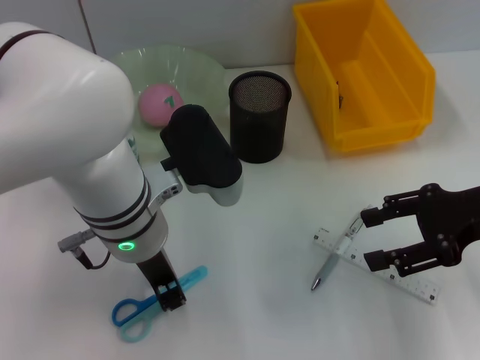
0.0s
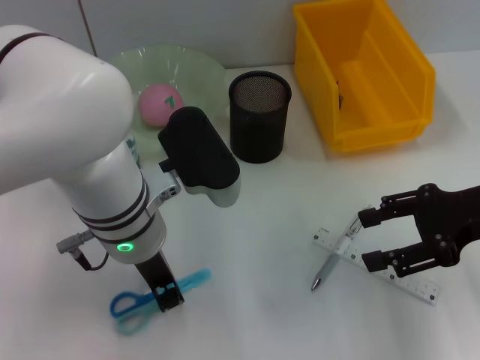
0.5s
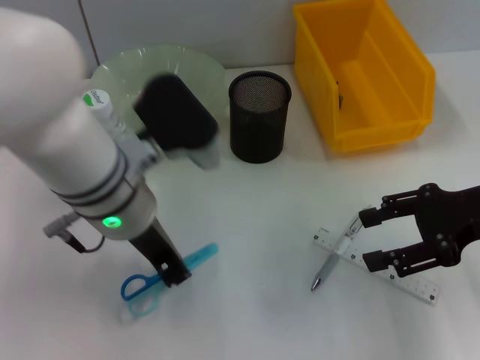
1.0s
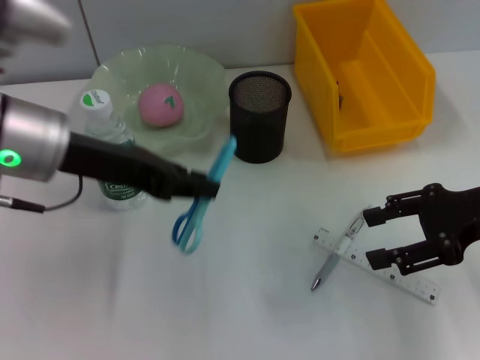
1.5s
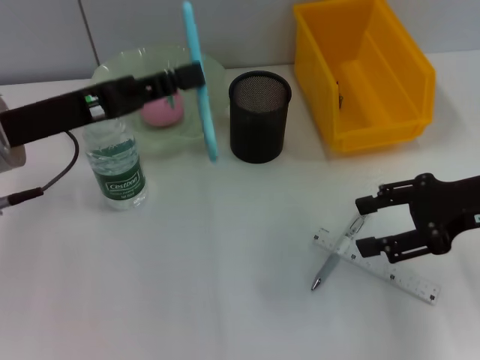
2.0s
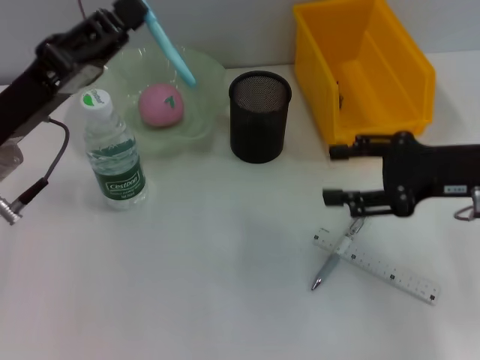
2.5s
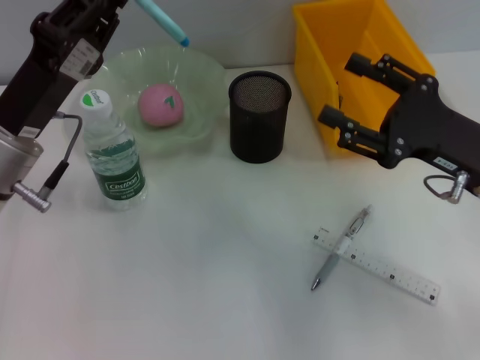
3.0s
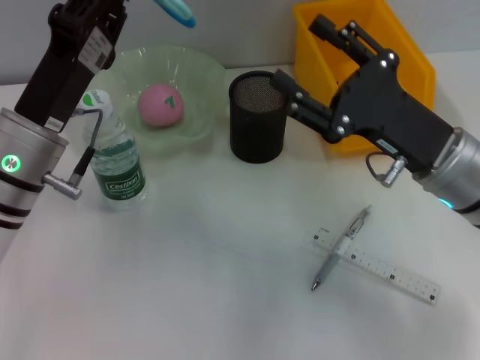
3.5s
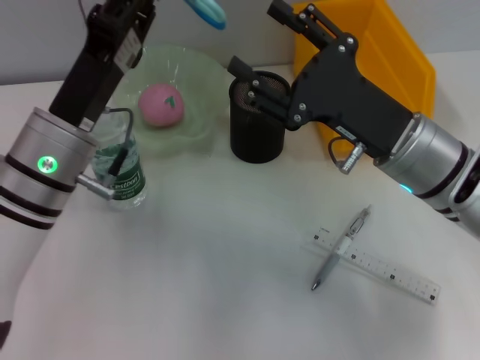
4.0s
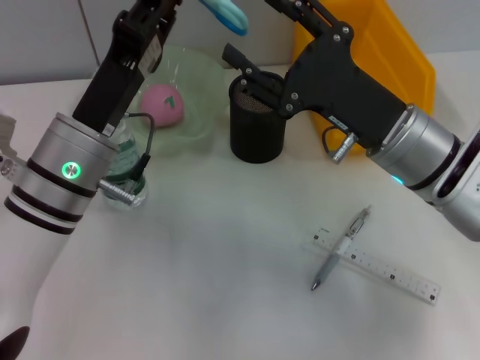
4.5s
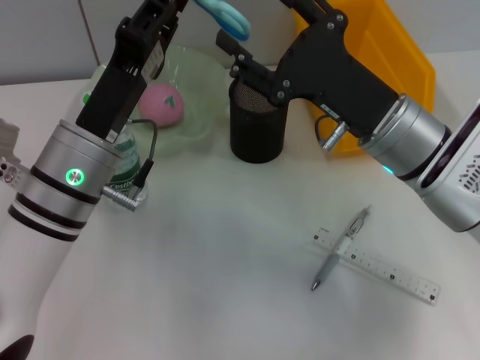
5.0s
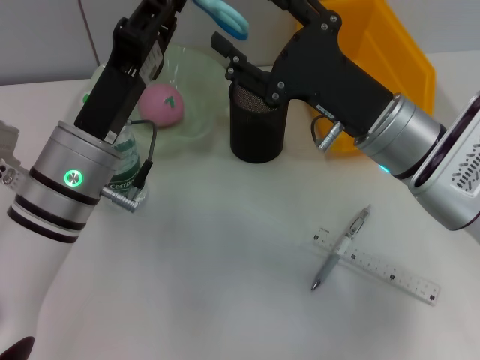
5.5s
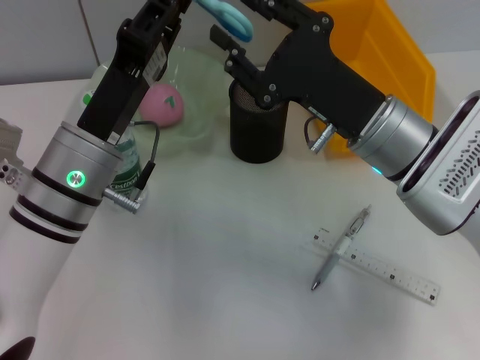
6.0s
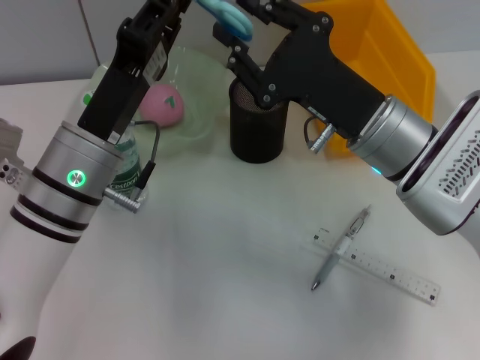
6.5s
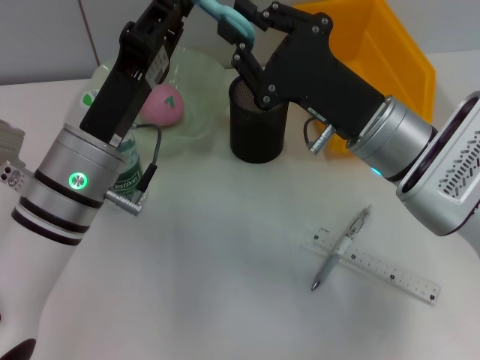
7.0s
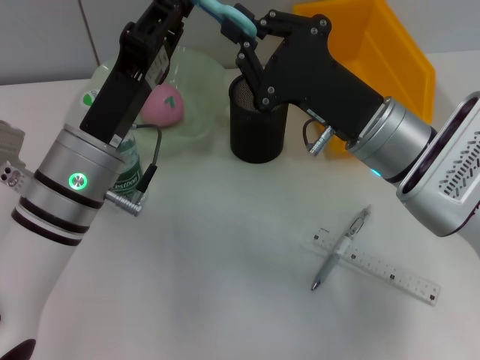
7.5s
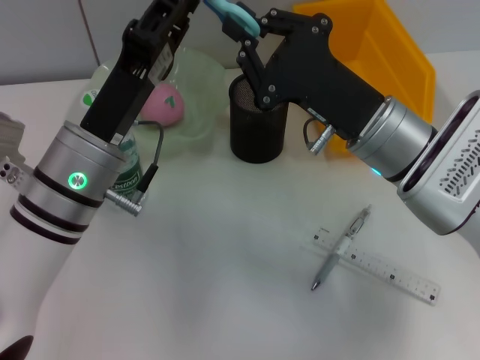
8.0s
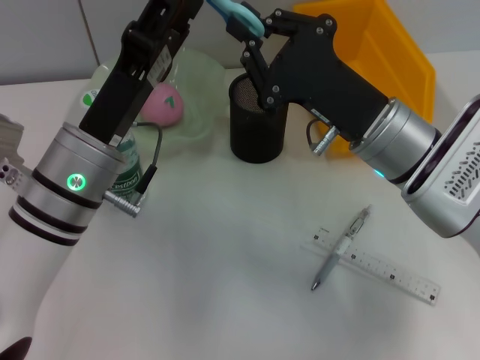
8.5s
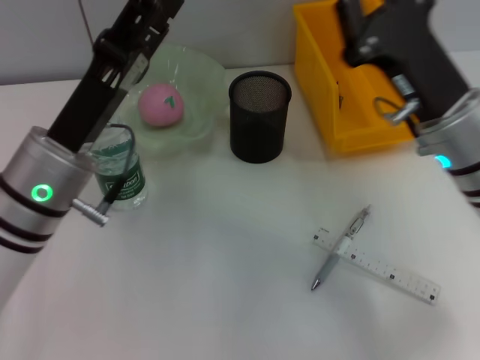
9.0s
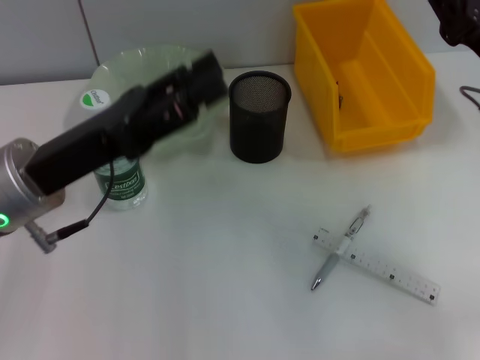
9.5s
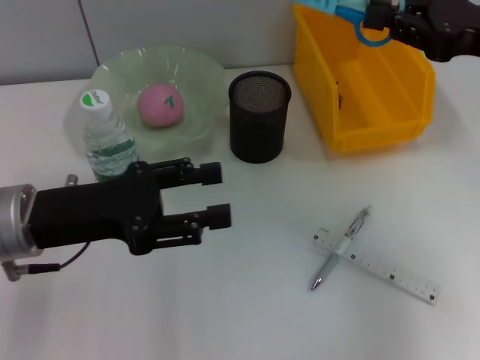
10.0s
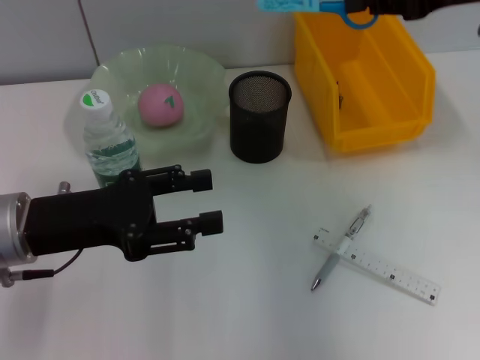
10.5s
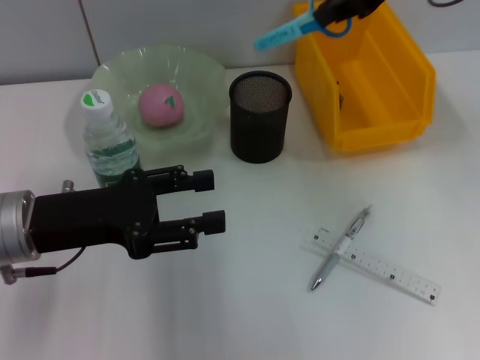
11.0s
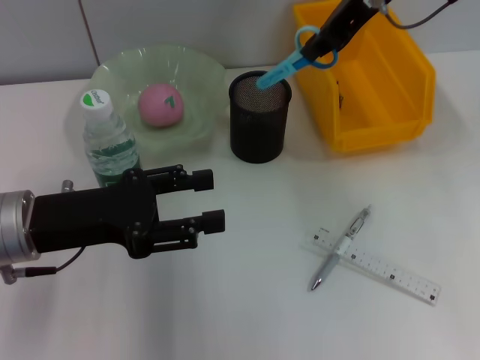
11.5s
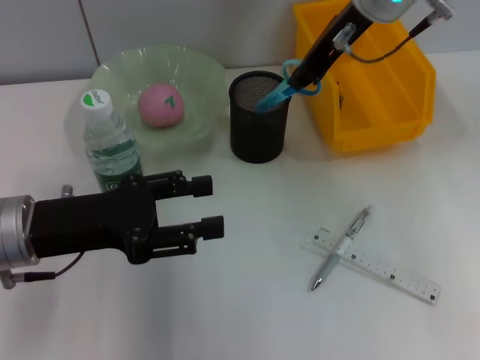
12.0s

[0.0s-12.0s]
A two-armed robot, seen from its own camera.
Step, 0.5s to 8.5s: Pass the blue scissors from the left hand to the right hand.
0.0s to 2.0s: The left gripper moves to the left, some 15 cm.
2.0s to 4.0s: The right gripper is displaced to the left by roughly 10 cm. The left gripper goes about 10 cm to the right and downward.
6.0s to 8.0s: The right gripper closes its fingers.
8.0s to 10.0s: The right gripper goes some 20 cm to the right and upward. Meanwhile the left gripper is displaced to the left by approximately 10 cm, and opens up.
10.0s to 12.0s: The right gripper goes roughly 20 cm to the left and forward.

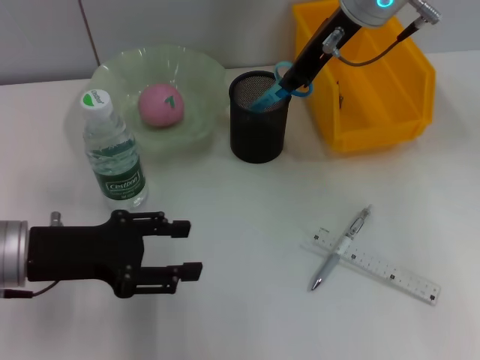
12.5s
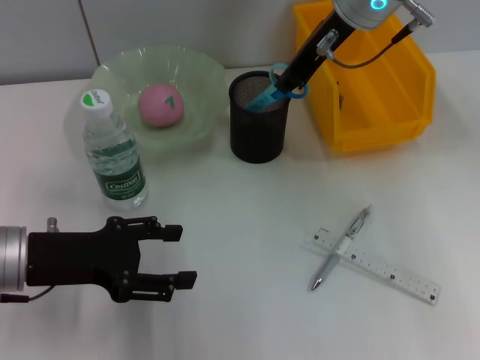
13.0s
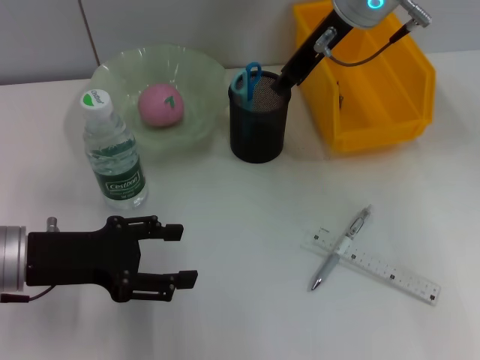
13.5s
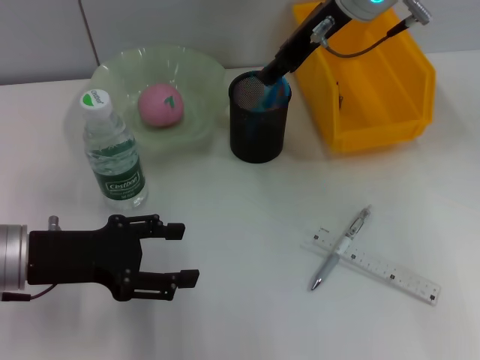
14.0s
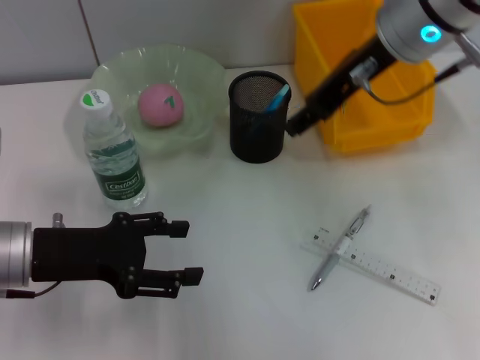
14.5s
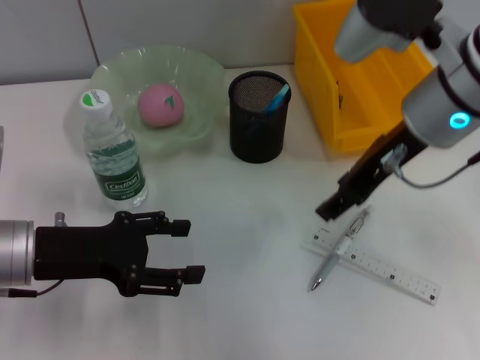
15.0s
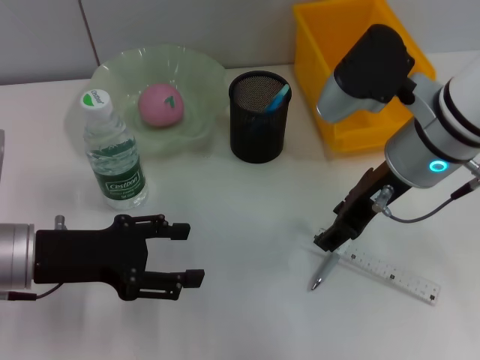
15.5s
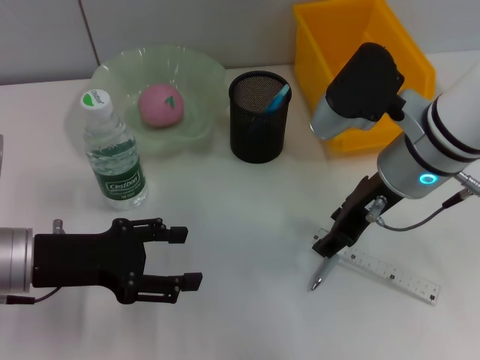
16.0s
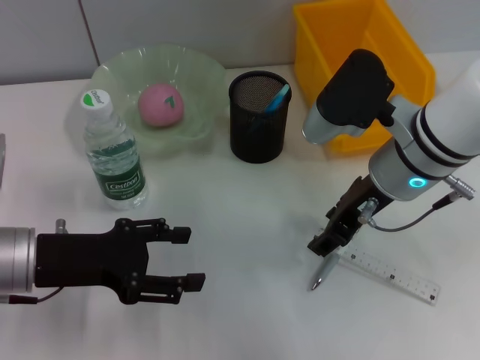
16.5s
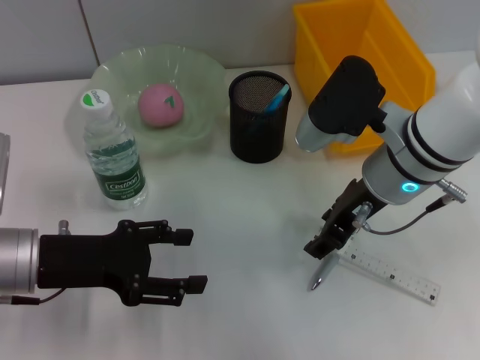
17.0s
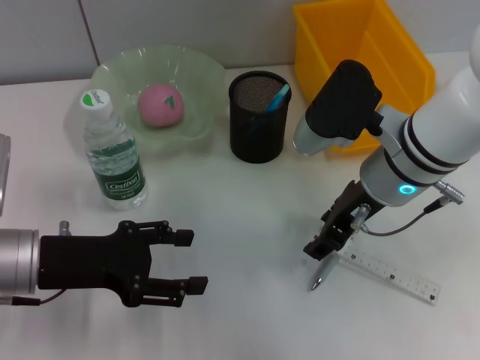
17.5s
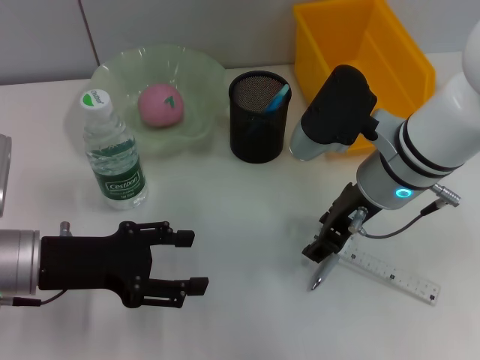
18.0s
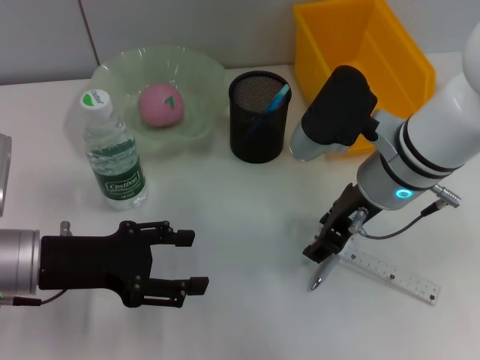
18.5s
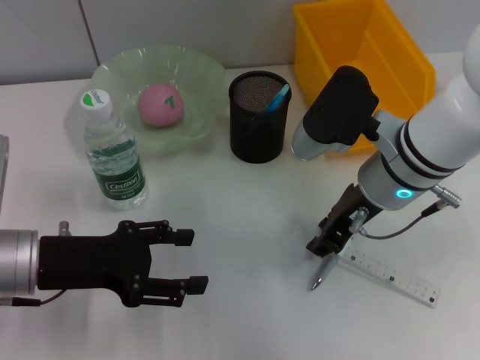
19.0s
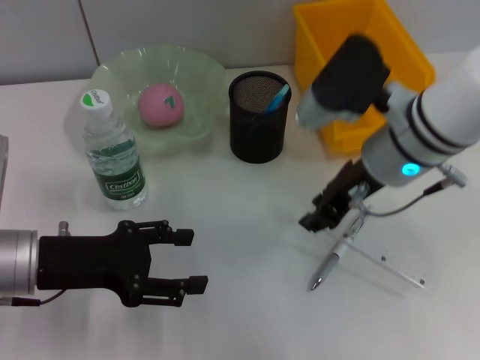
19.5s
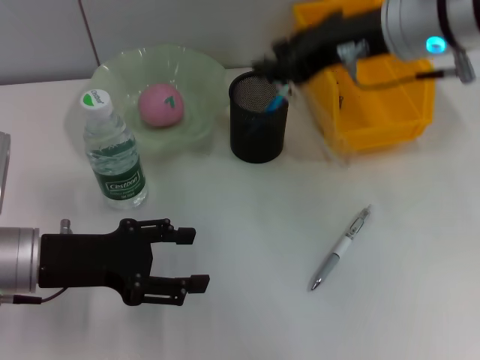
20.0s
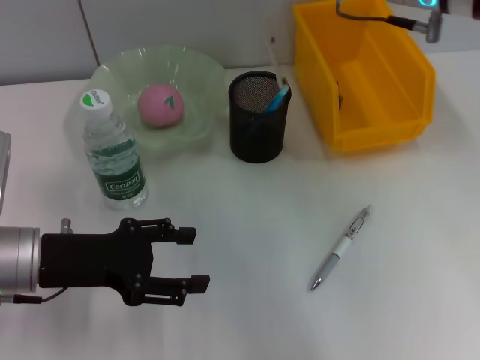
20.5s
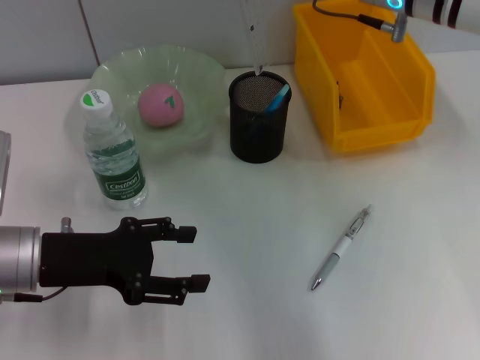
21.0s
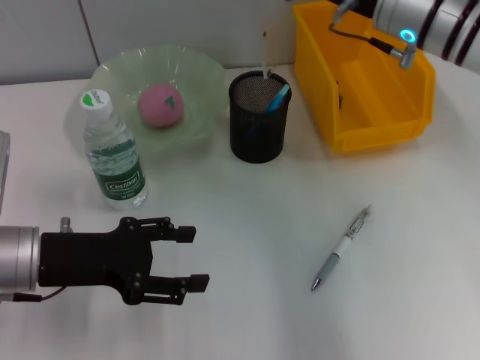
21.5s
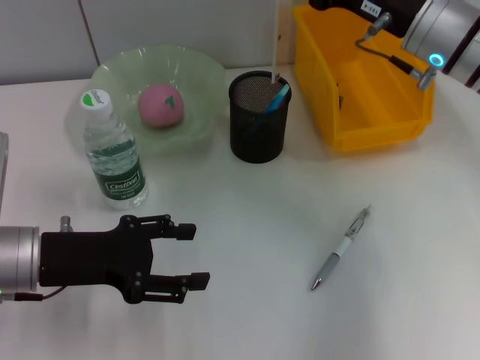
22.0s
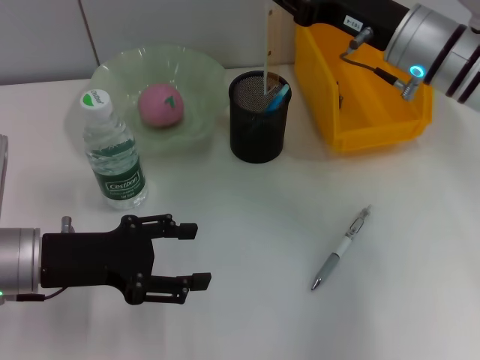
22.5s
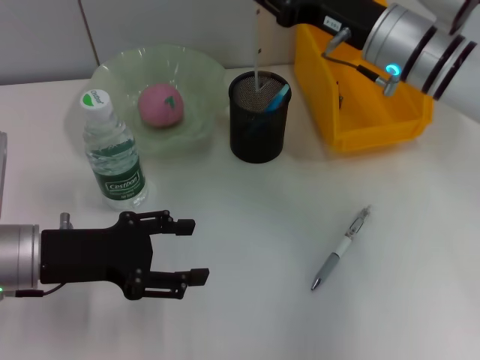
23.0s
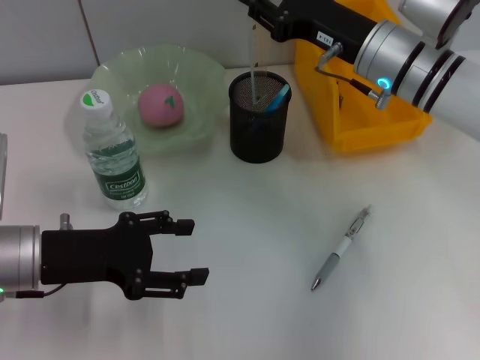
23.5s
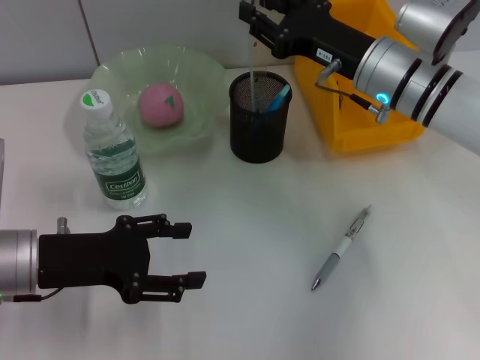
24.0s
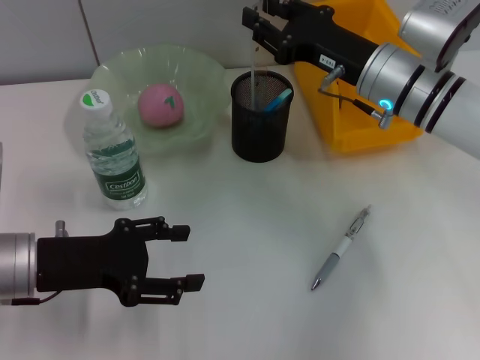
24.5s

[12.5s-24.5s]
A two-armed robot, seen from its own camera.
Step, 14.0s to 19.0s: Grab the ruler with the right hand.
12.5s to 14.5s: The right gripper moves backward, roughly 5 cm, and opens.
14.5s to 16.5s: The right gripper travels downward by some 10 cm.
16.5s to 18.5s: There are only small adjustments of the grippers.
18.5s to 20.5s: The right gripper travels upward by approximately 15 cm, and closes its fingers.
20.5s to 22.5s: The right gripper shifts roughly 10 cm downward.
22.5s to 24.5s: The grippers stay close to where they were, moving slightly.

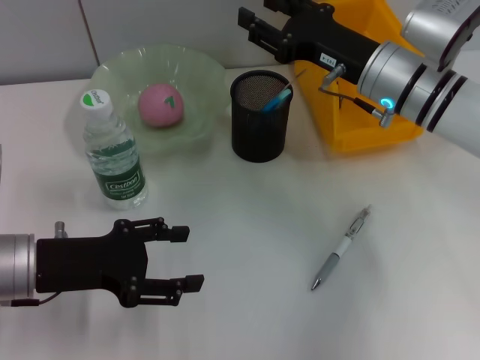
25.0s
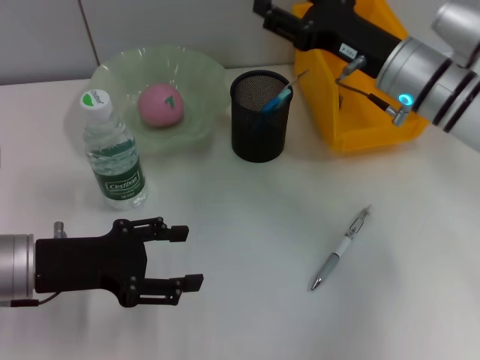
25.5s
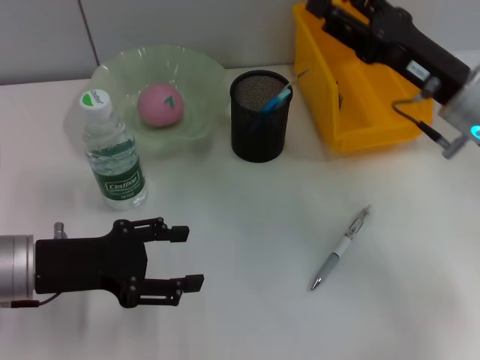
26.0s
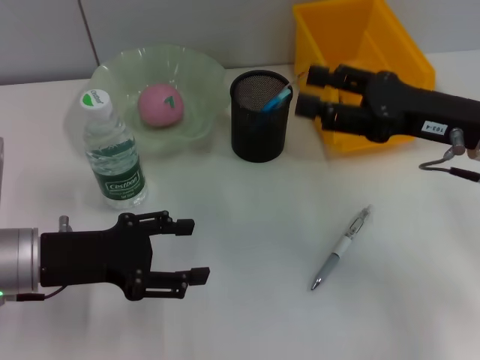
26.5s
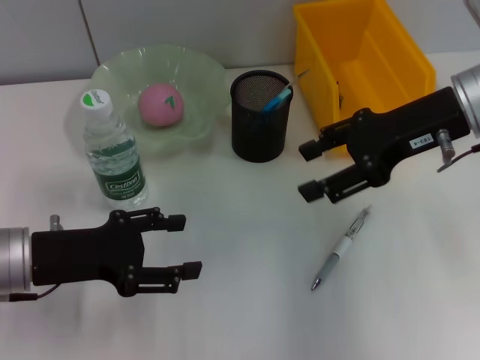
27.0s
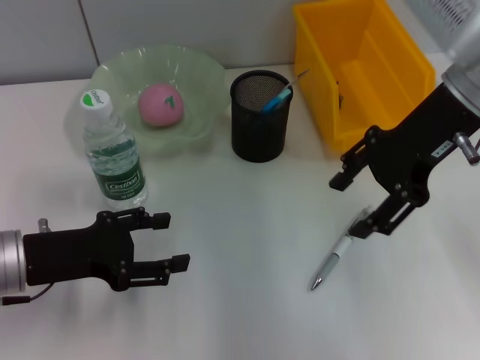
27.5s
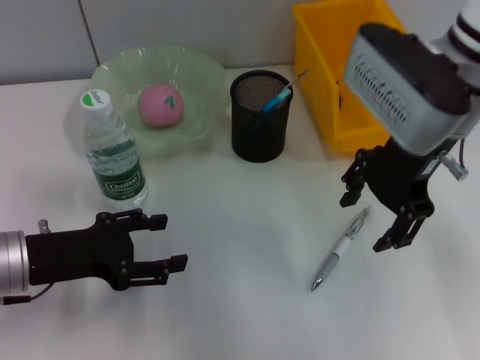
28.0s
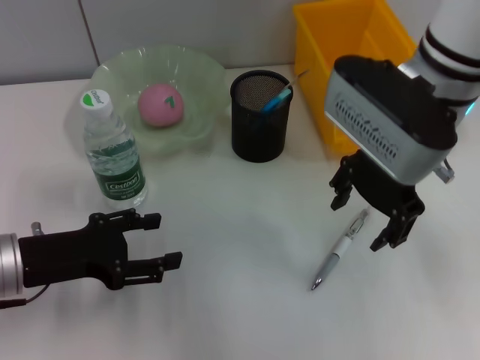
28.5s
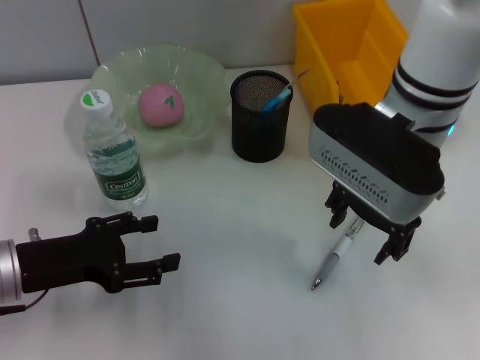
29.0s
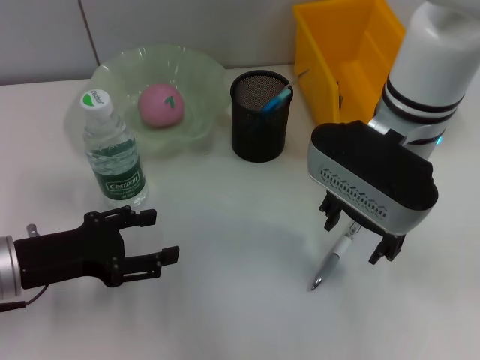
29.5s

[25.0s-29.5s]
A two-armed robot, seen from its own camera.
25.0s to 27.0s: The right gripper is displaced upward and to the right by roughly 10 cm.
27.0s to 29.5s: The right gripper moves to the left, some 10 cm.
